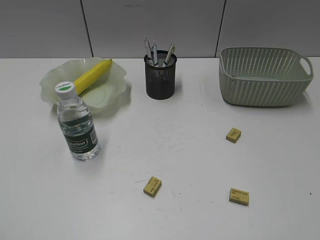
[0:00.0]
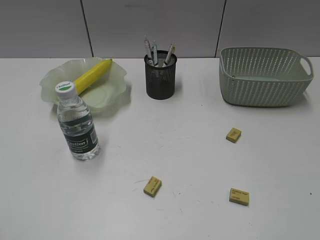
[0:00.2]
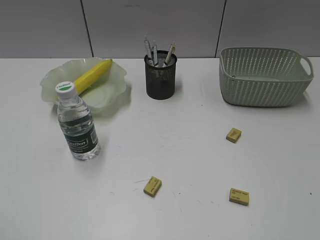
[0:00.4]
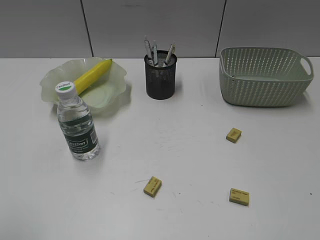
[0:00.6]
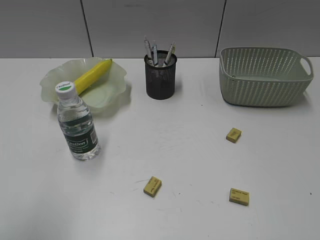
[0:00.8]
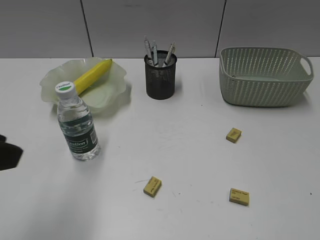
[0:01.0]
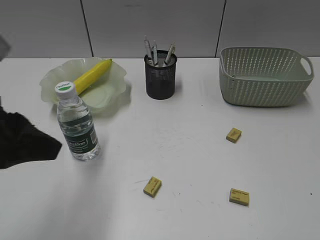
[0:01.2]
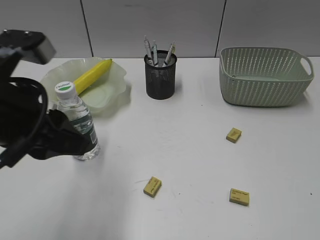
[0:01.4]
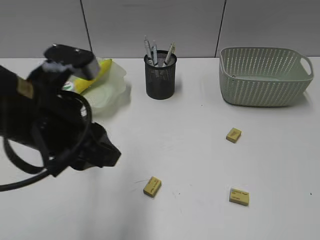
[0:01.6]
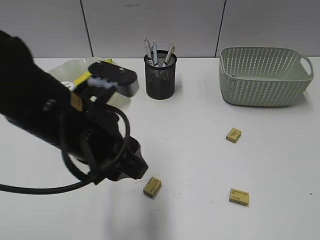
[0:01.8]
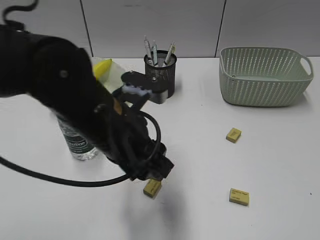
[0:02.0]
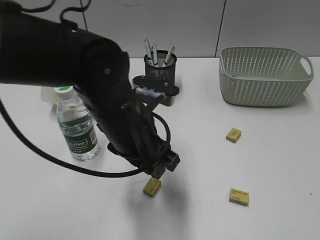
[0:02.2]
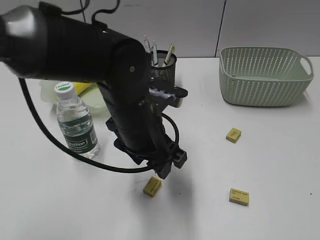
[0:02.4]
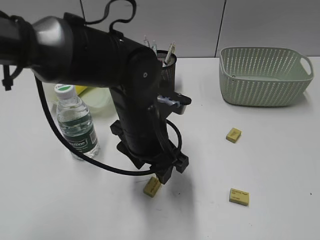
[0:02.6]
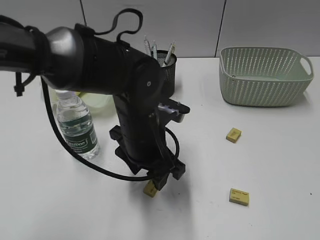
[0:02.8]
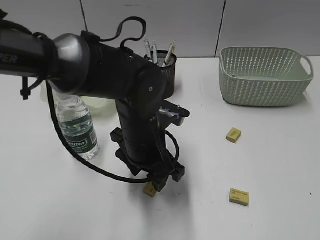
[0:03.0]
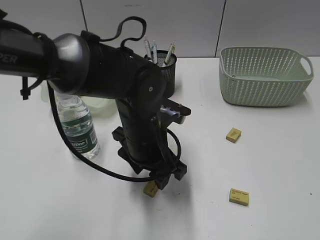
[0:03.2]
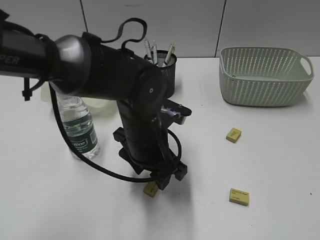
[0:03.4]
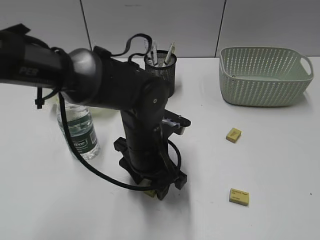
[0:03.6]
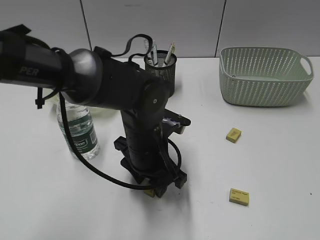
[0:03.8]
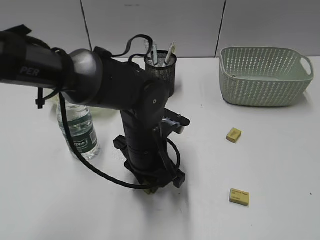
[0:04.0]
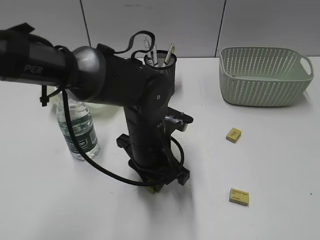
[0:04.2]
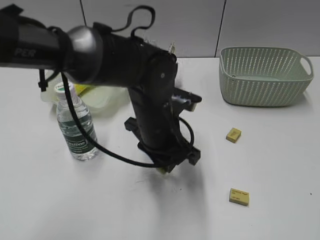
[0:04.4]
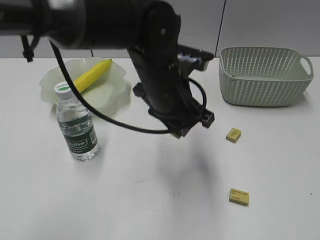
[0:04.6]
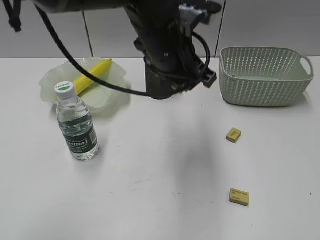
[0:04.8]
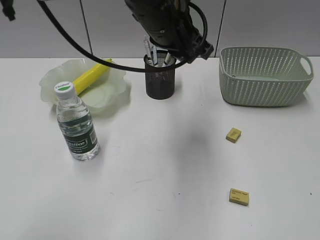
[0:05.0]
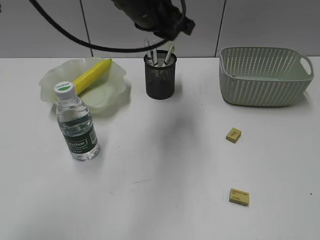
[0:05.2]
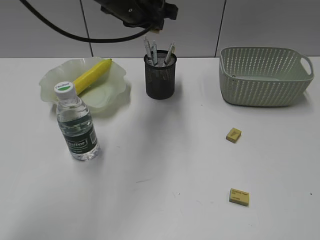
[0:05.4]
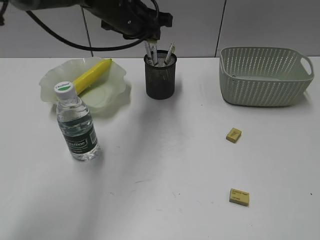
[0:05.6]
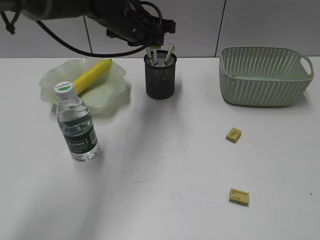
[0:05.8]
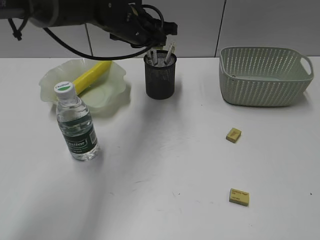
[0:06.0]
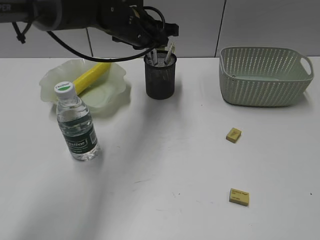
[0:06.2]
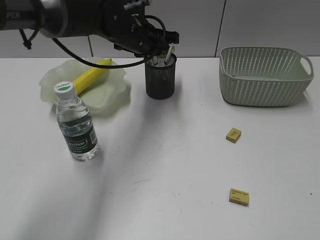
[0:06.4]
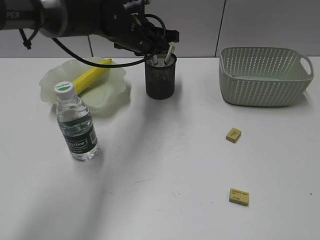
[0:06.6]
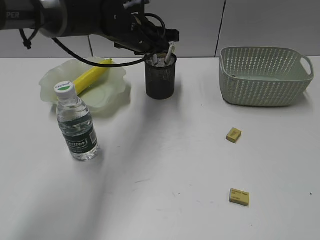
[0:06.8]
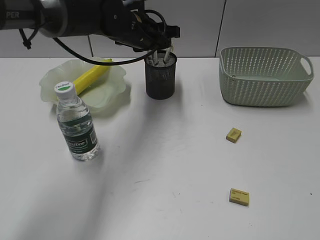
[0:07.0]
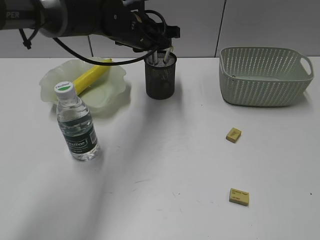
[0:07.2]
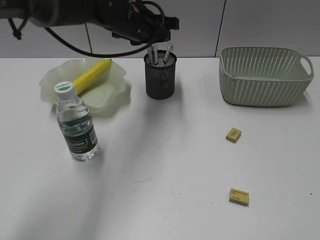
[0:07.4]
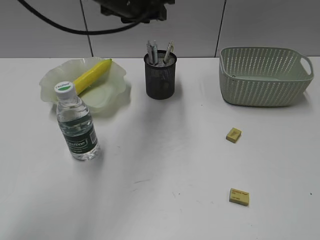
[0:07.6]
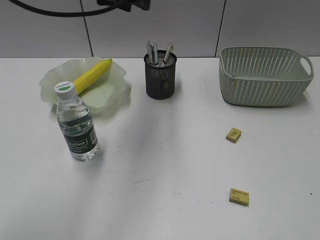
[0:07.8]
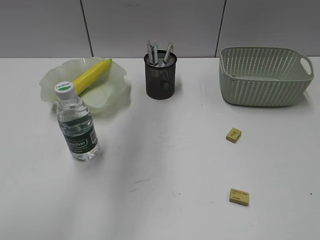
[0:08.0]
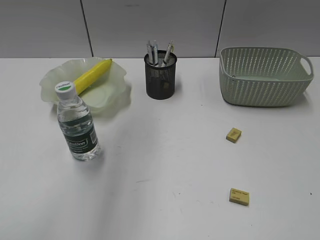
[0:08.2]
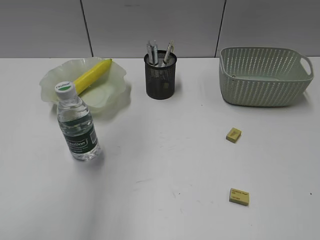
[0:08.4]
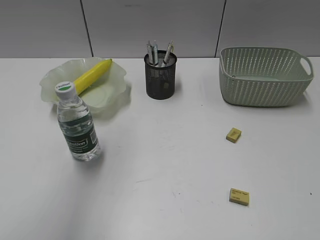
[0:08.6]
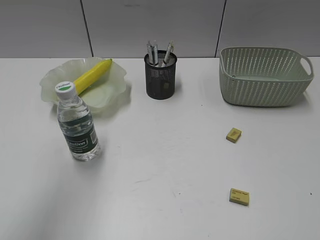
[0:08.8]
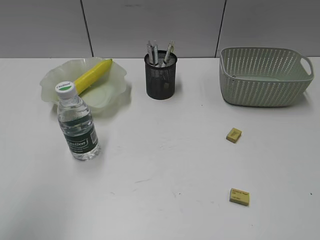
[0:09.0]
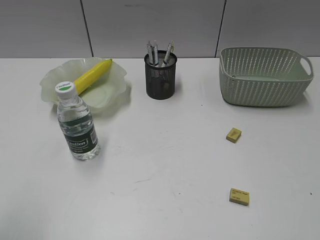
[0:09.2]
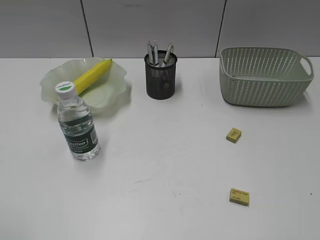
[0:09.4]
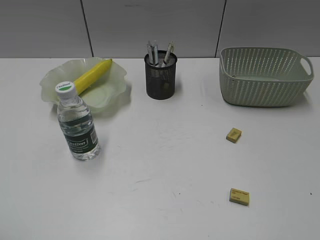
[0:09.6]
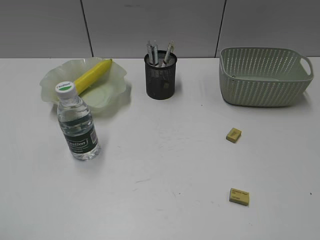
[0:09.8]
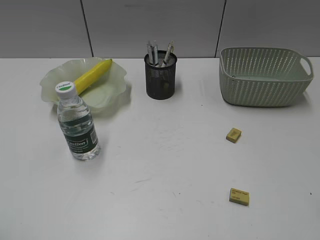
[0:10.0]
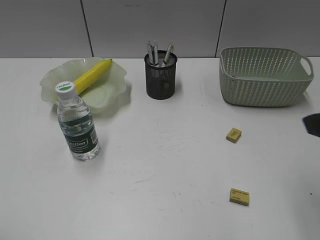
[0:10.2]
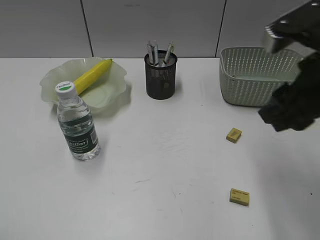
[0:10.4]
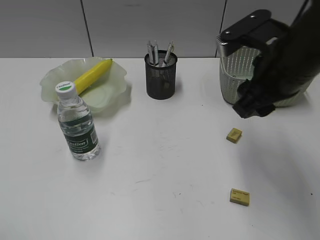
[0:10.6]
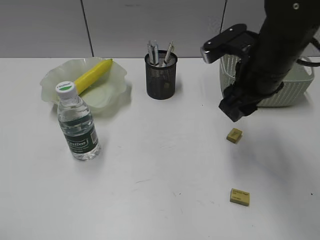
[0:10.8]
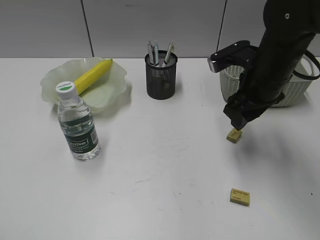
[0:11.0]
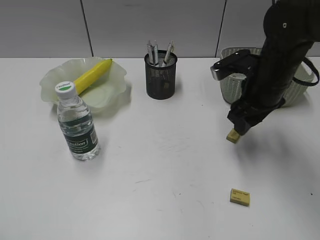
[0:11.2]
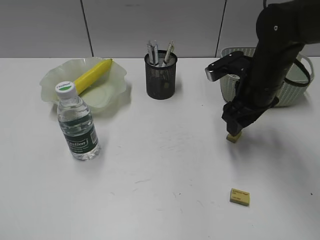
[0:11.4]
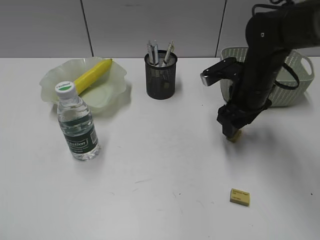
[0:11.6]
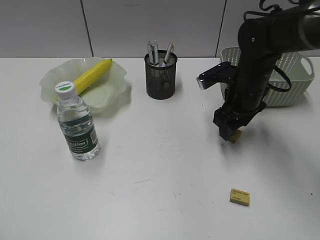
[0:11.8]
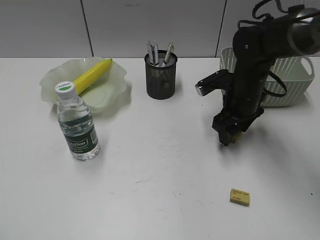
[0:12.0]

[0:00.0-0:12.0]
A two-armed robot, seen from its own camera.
Step, 0:00.0 to 0:04.0: Grasp the eraser with left gripper.
Step, 0:04.2 to 0:07.0: Place the eraser in pen holder with left gripper.
0:00.0 to 0:01.6: The left gripper is displaced forward and to the right by roughly 25 cm.
0:01.6 to 0:03.0: The left gripper travels to the right, downward and forward by approximately 20 cm.
0:03.0 to 0:04.4: The left gripper closes its fingers.
0:04.4 to 0:06.0: The left gripper goes about 20 cm forward and upward.
0:06.0 to 0:07.6: The left gripper moves upward, some 5 cm.
0:07.6 to 0:09.0: The left gripper heads backward and to the left, covering approximately 40 cm.
0:09.0 to 0:10.4: The right gripper is displaced forward and to the left by some 25 cm.
0:10.4 to 0:12.0: The right gripper shifts approximately 25 cm forward and downward.

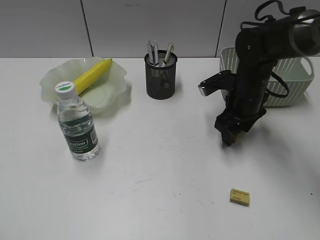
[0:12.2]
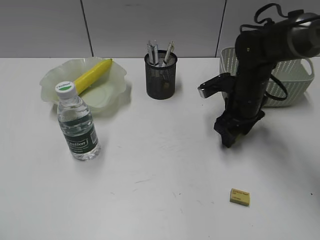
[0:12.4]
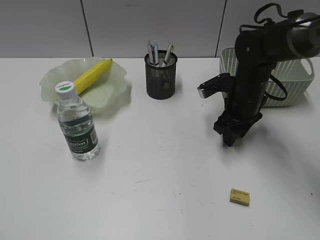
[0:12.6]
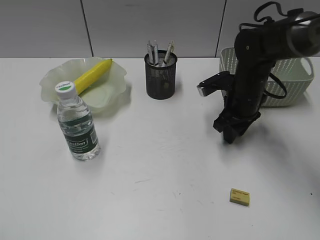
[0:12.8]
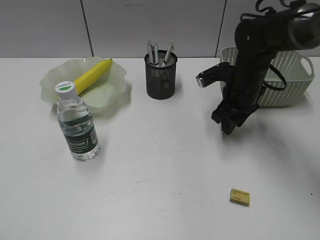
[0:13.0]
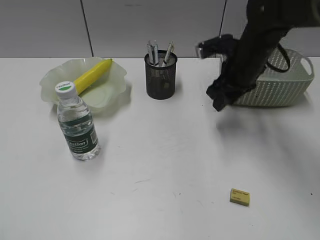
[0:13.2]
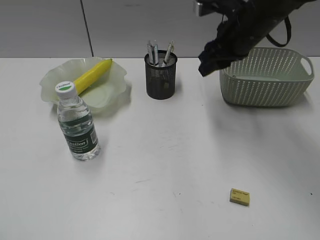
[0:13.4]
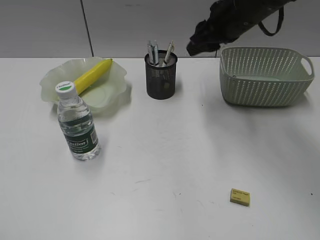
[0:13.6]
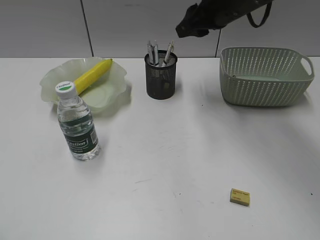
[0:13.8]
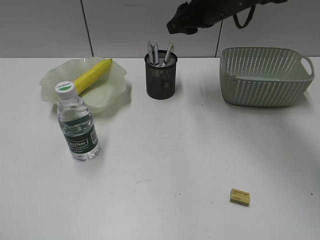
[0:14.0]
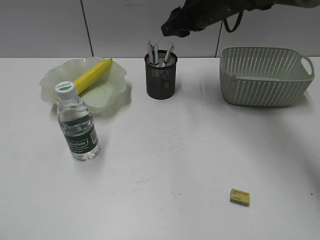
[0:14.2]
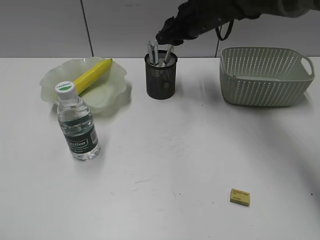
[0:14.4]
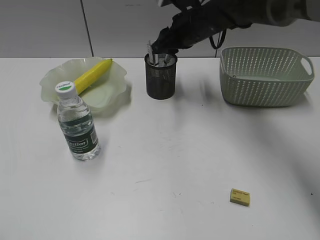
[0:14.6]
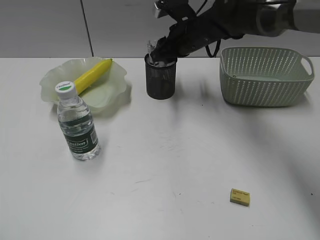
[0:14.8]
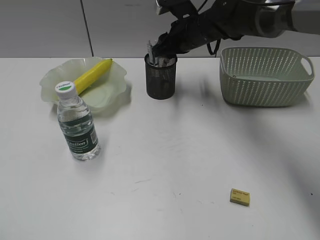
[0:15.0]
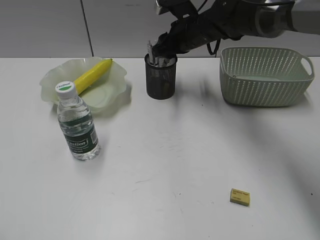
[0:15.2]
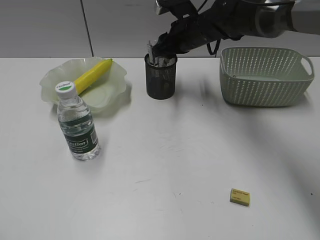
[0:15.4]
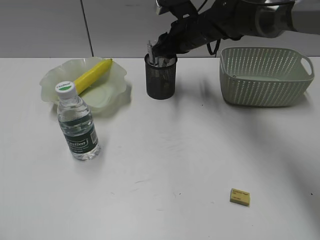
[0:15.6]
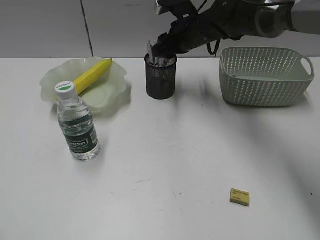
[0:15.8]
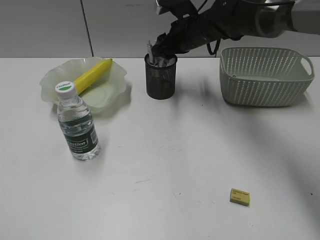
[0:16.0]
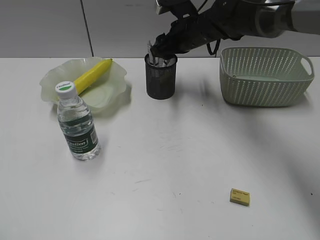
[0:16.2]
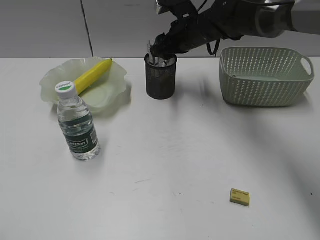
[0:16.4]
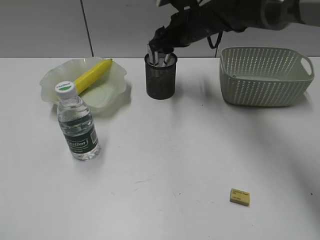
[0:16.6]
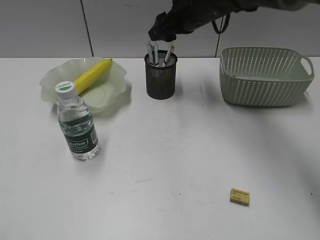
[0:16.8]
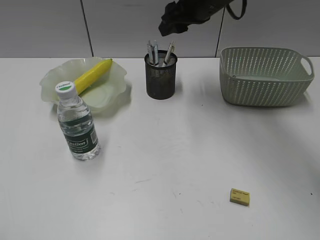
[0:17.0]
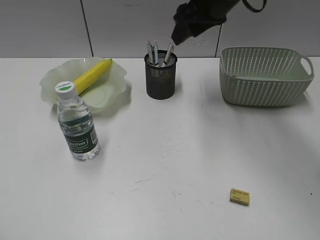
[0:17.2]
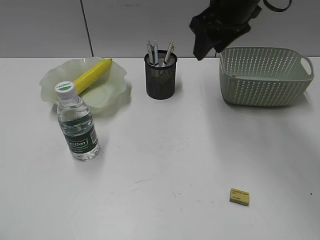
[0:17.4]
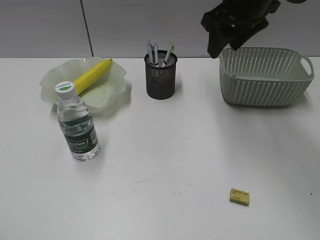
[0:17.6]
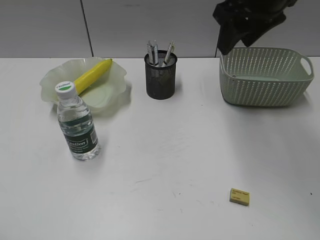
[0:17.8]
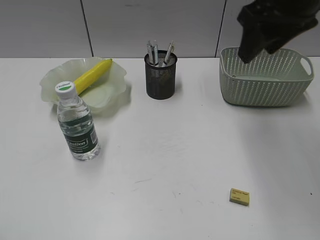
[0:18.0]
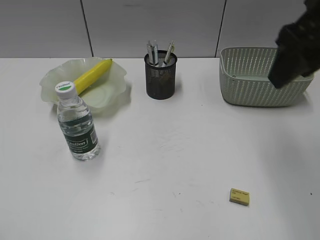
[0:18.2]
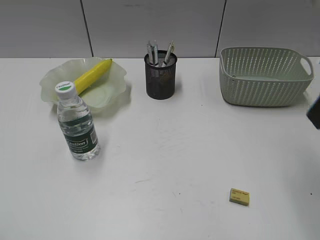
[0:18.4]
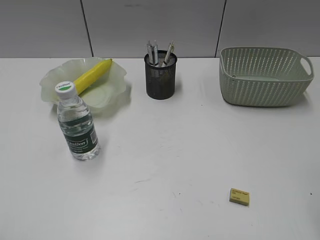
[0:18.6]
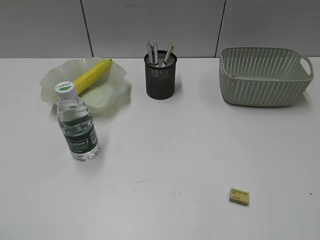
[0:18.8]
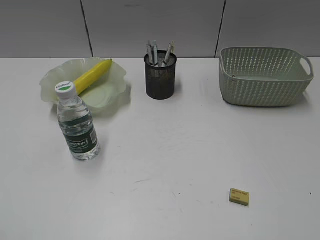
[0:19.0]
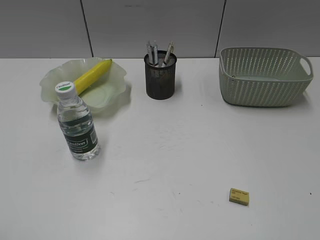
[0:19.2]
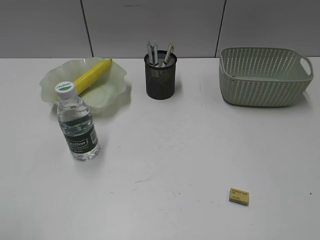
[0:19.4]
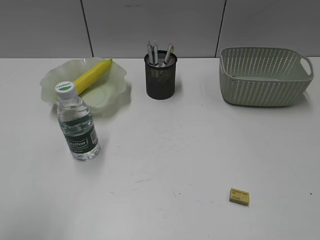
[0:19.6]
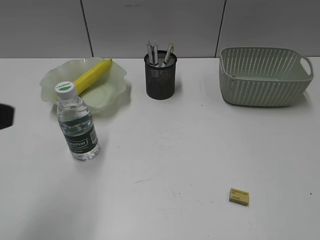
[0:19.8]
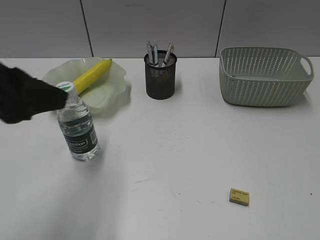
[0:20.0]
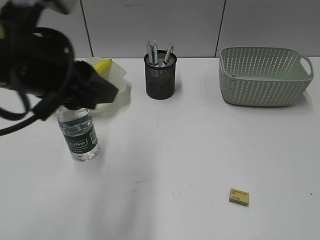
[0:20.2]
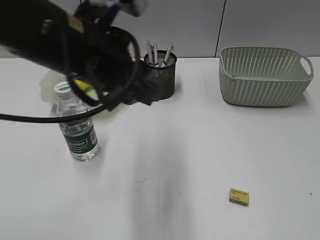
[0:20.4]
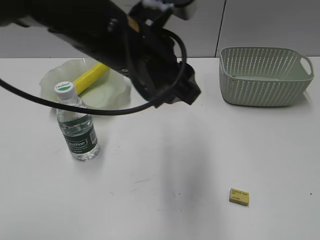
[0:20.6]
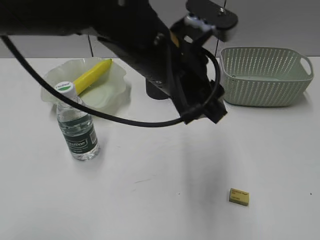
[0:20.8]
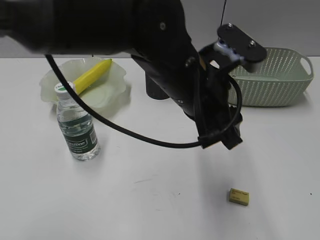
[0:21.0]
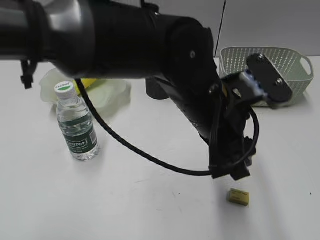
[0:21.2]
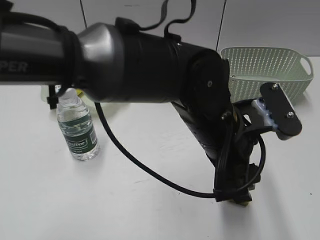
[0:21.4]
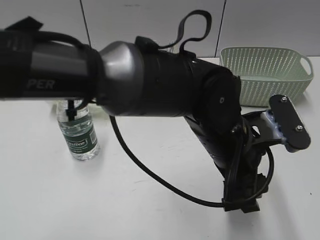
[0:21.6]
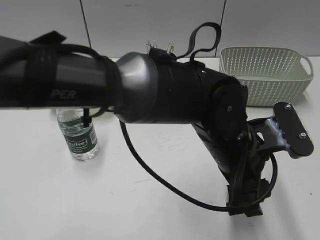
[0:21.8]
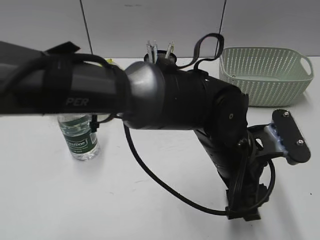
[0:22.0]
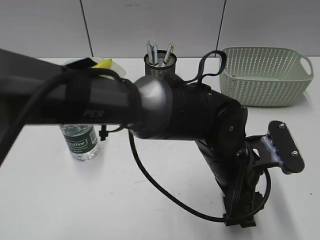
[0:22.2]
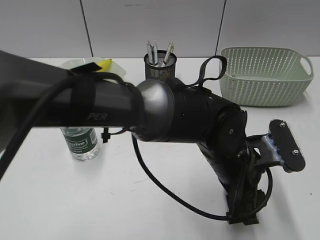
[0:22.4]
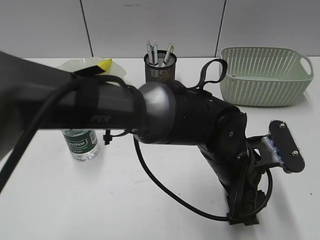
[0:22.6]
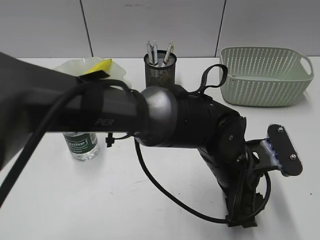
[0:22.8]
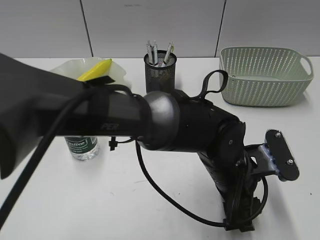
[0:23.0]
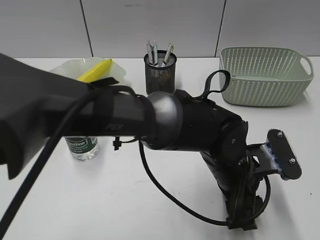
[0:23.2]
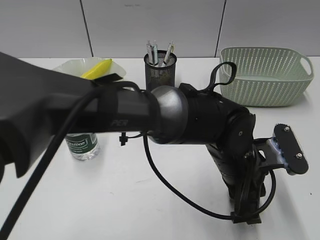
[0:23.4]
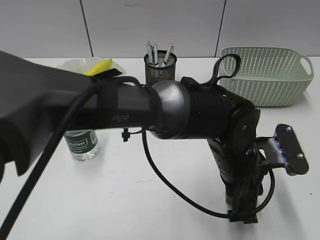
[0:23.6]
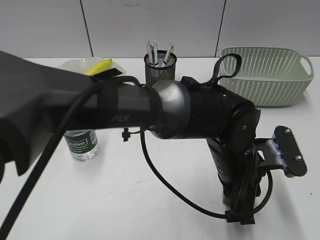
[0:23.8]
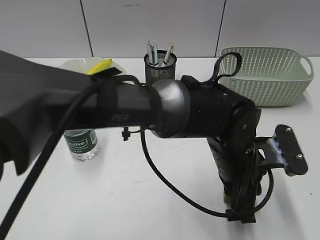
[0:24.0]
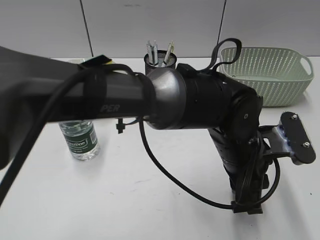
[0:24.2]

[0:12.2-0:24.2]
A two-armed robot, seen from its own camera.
Step, 0:12.8 to 0:16.2: Place the eraser in pen holder with right gripper.
Step, 0:16.4 to 0:23.4: Grasp the eraser with left gripper.
0:12.2 to 0:13.8: The right gripper travels upward by about 15 cm, and closes its fingers.
0:13.8 to 0:15.2: The right gripper shifts about 10 cm downward and forward.
0:15.2 to 0:16.6: The grippers stay close to where they were, moving slightly.
0:16.6 to 0:18.2: The right gripper heads backward, upward and to the right, covering about 30 cm.
0:18.2 to 0:19.8: The right gripper shifts some 30 cm backward and to the right; the left gripper is displaced forward and to the right by approximately 15 cm.
0:19.8 to 0:21.2: The left gripper goes some 35 cm to the right and forward.
0:21.2 to 0:22.6: The left gripper moves downward, about 10 cm.
0:22.6 to 0:24.2: The left gripper closes its fingers.
